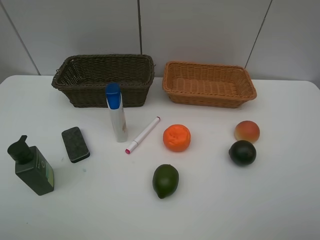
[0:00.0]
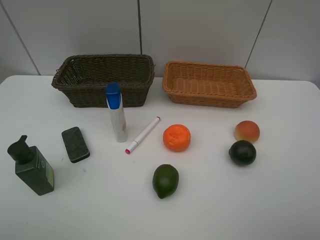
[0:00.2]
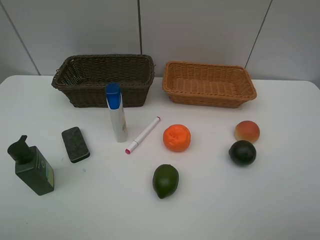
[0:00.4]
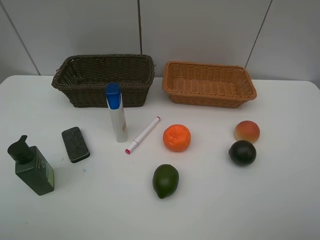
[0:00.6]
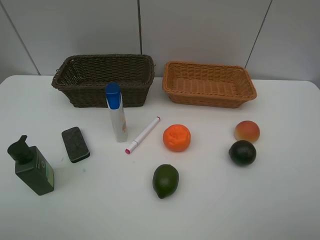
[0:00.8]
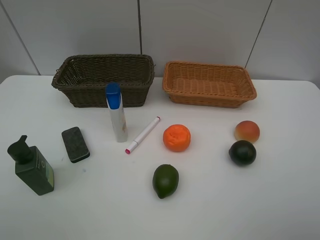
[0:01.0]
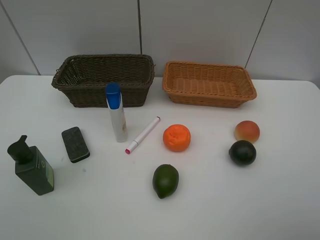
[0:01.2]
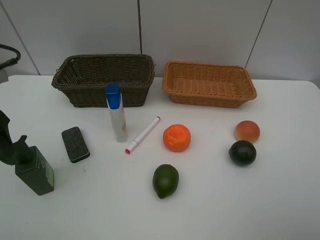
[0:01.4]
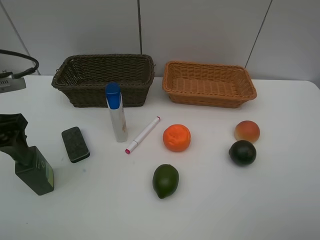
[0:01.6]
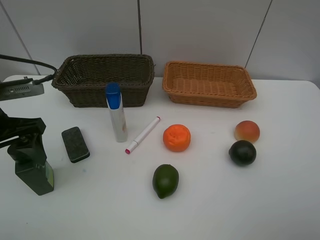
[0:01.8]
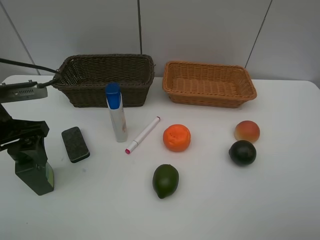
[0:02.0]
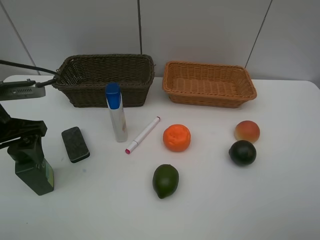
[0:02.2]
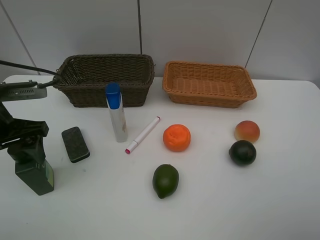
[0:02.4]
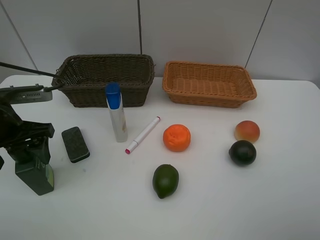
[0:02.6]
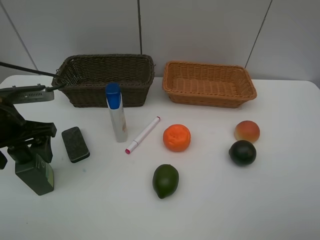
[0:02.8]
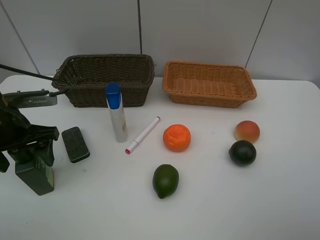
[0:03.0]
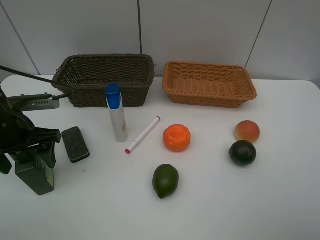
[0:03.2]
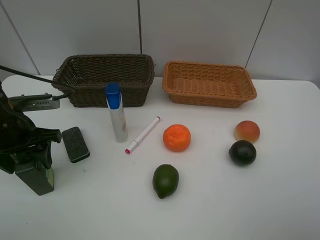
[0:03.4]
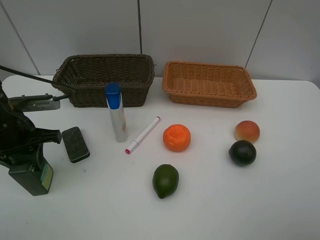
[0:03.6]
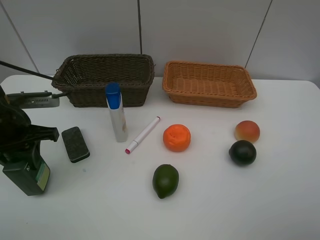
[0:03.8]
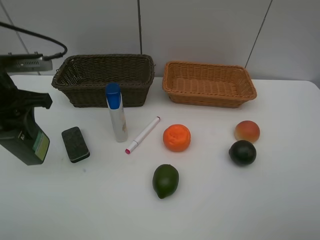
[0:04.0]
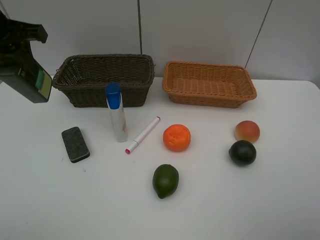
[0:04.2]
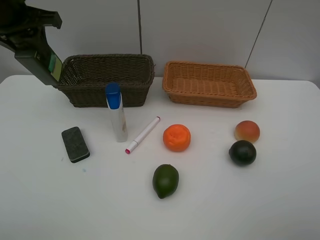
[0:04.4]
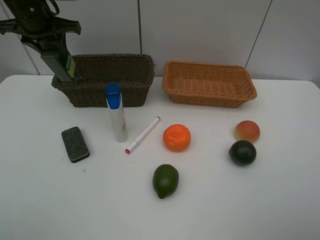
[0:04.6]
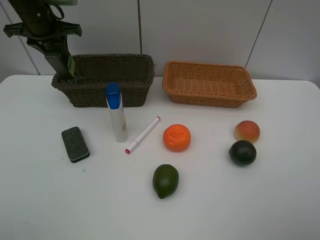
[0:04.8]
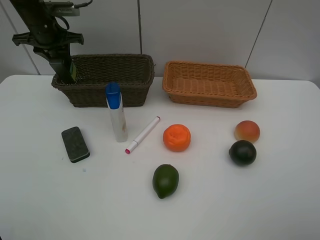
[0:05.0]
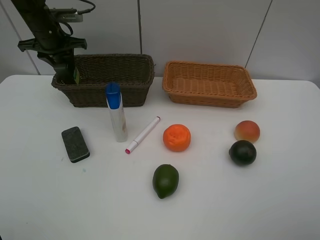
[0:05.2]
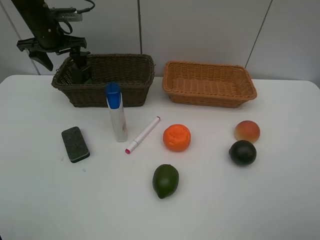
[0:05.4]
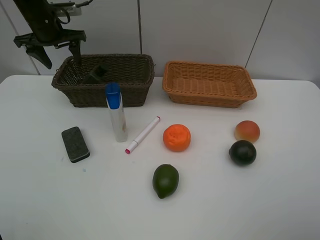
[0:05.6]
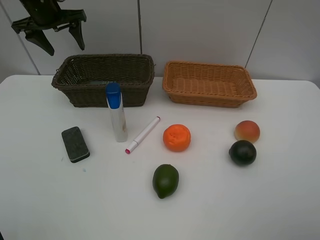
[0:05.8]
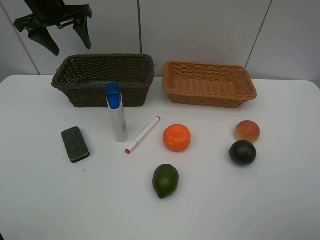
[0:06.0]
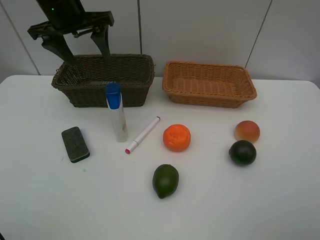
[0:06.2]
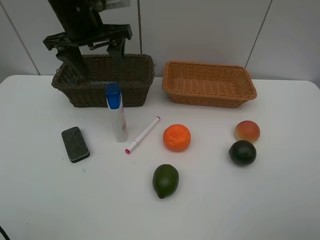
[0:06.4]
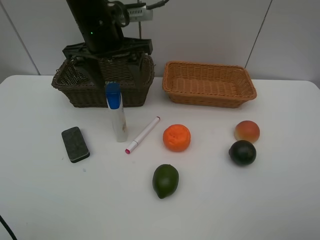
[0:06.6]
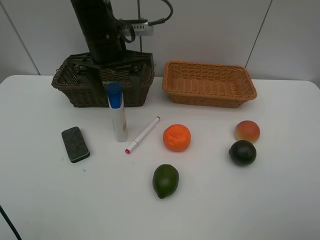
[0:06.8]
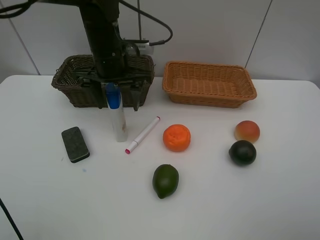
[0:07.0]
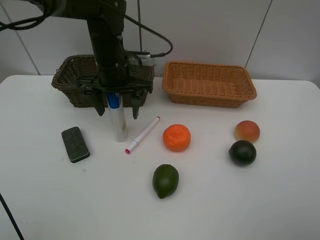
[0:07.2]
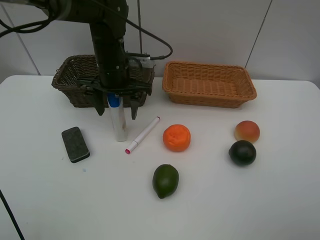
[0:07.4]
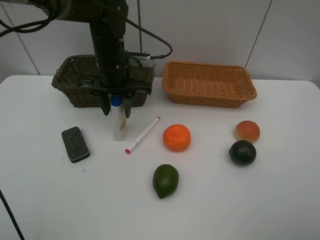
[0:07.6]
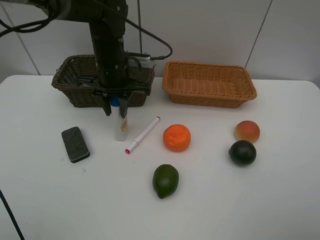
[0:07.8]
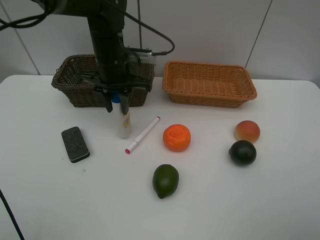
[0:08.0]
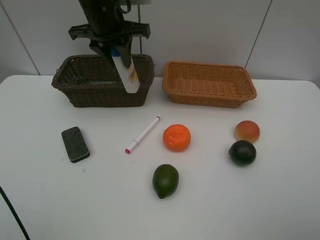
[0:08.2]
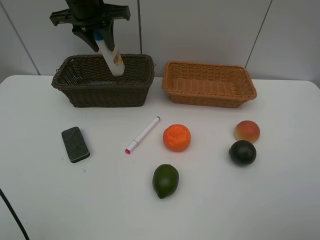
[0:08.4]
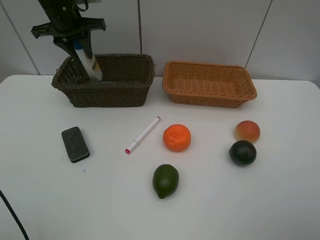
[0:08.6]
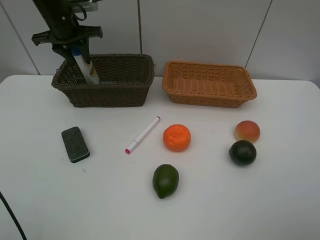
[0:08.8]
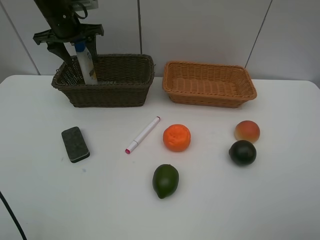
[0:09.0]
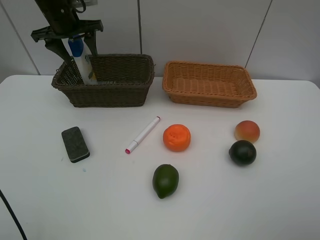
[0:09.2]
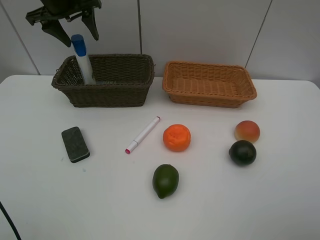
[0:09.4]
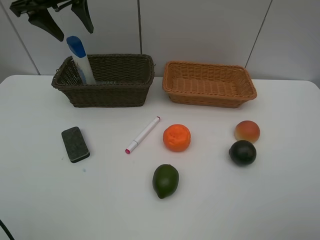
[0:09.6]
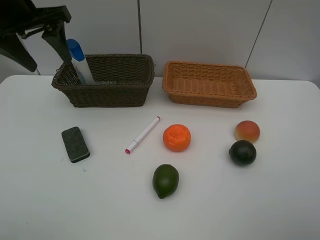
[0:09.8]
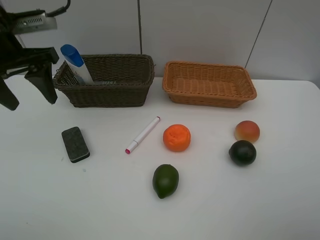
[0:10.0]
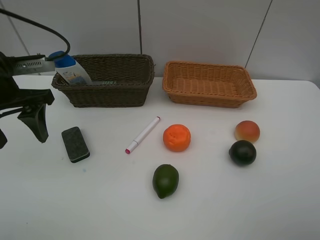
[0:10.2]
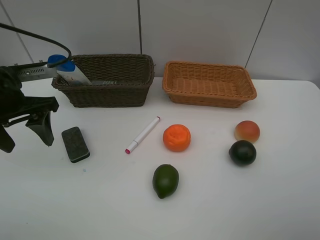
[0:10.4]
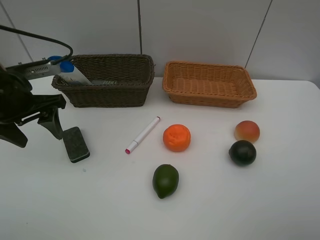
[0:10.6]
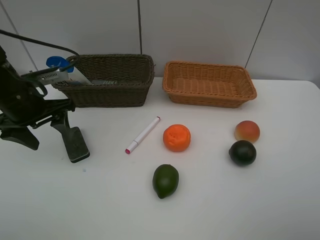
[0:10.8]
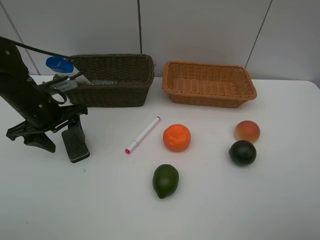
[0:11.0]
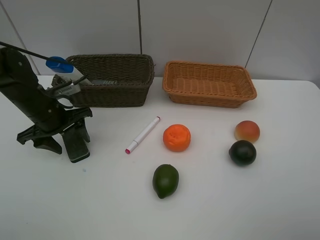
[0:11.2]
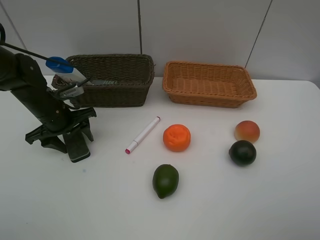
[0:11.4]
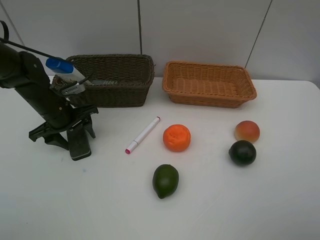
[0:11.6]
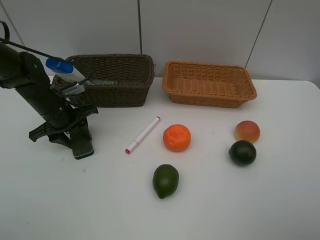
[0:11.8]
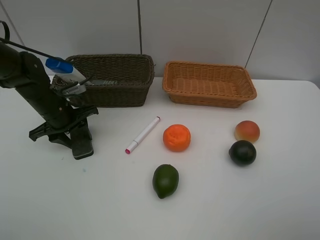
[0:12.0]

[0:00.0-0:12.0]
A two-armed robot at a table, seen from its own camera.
Task of the whole recording: Place multiple objects separately in different baskets.
Step, 0:00.0 to 0:03.8: Pick up the hard facial cleanser with left gripper.
Step, 0:04.0 to 0:05.4: Place the hard facial cleanser in the dark basket with left gripper.
Step, 0:05.6 to 0:08.0: Pick up the shampoo with left gripper.
Step, 0:08.2 to 0:09.6: Place the shampoo in the dark basket with left gripper.
0:00.0 to 0:01.6: The left gripper travels forward by about 20 cm.
0:01.6 to 0:03.0: The left gripper heads downward, covering approximately 5 cm.
0:03.0 to 0:04.4: The left gripper is displaced upward and forward by roughly 20 cm, and closes its fingers.
0:04.4 to 0:06.0: The left gripper travels forward by about 10 cm, and opens up.
0:06.0 to 0:07.6: The left gripper travels to the right, downward and backward by some 20 cm, and closes its fingers.
0:07.6 to 0:09.0: The left gripper heads to the left, forward and upward, covering some 20 cm, and opens up.
0:09.0 to 0:10.4: The left gripper moves backward, about 20 cm.
0:10.4 to 0:12.0: The left gripper moves downward and forward, roughly 15 cm.

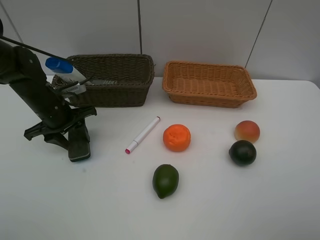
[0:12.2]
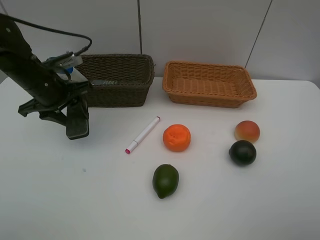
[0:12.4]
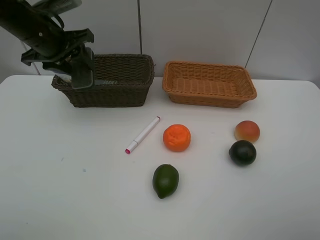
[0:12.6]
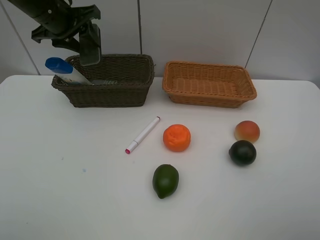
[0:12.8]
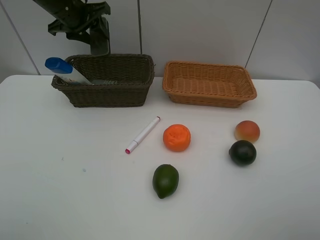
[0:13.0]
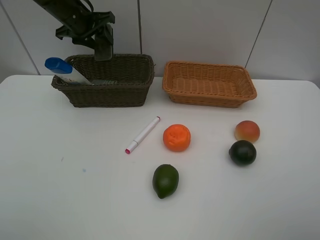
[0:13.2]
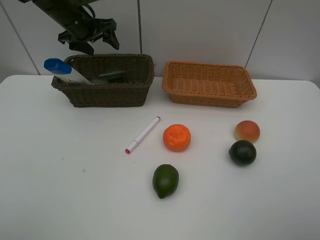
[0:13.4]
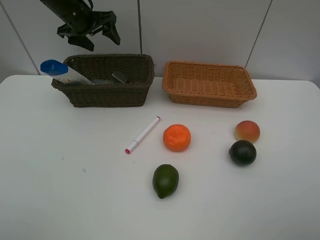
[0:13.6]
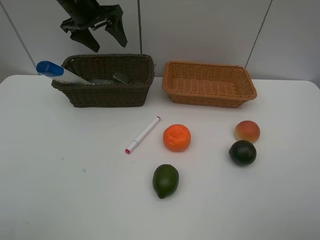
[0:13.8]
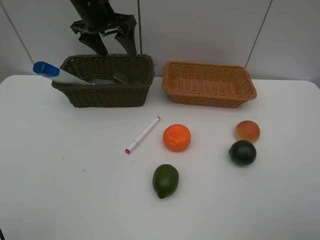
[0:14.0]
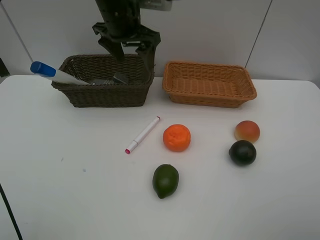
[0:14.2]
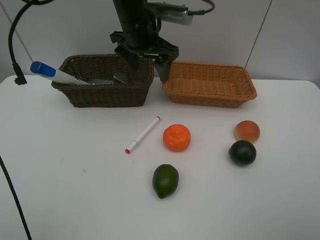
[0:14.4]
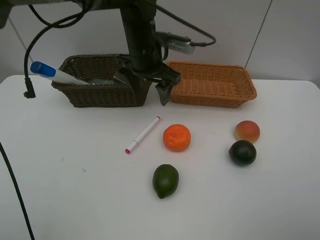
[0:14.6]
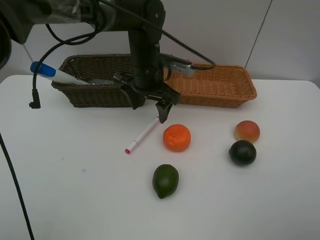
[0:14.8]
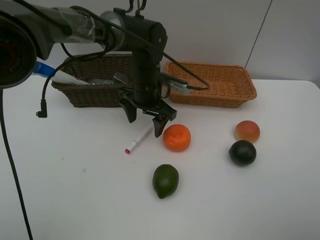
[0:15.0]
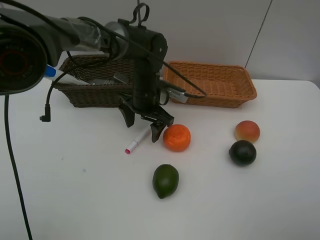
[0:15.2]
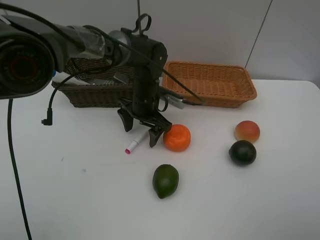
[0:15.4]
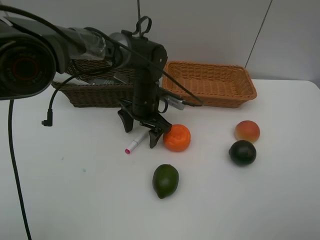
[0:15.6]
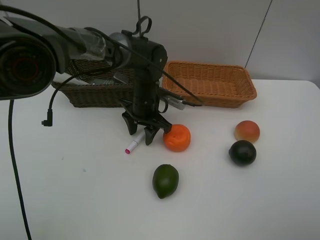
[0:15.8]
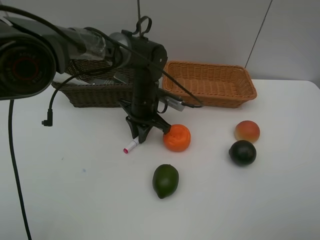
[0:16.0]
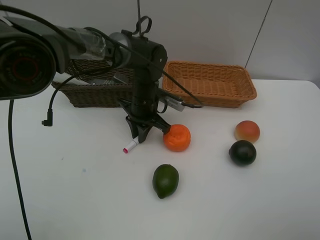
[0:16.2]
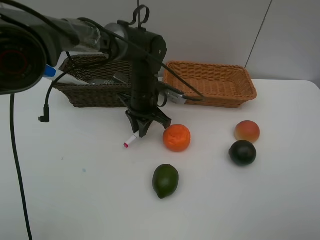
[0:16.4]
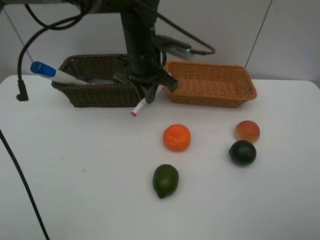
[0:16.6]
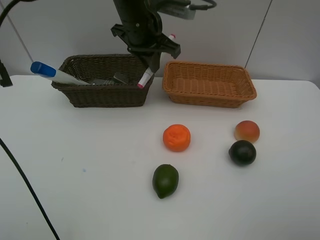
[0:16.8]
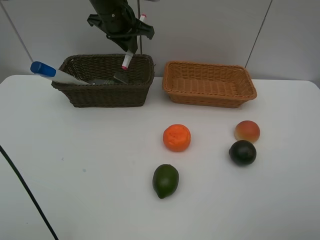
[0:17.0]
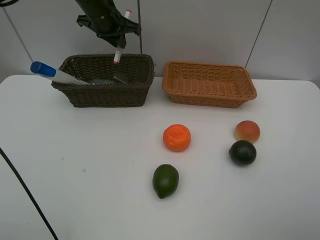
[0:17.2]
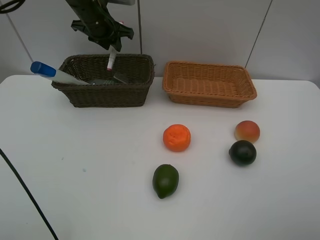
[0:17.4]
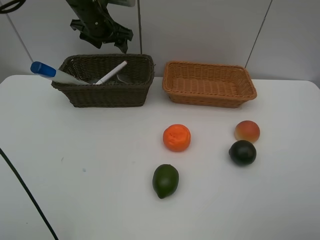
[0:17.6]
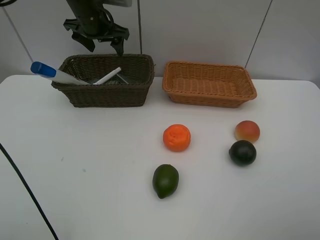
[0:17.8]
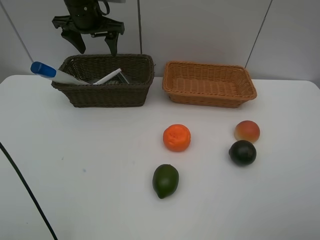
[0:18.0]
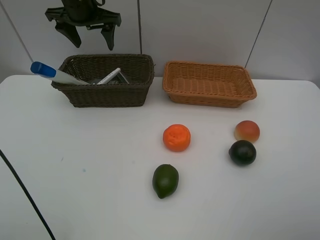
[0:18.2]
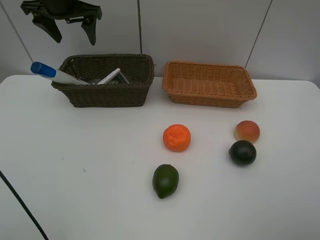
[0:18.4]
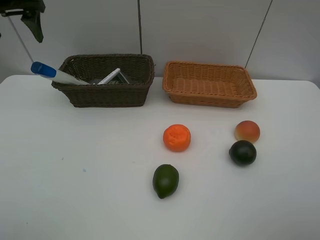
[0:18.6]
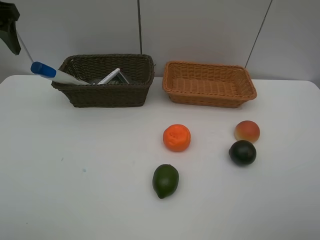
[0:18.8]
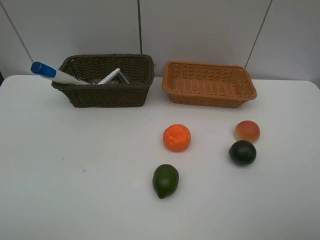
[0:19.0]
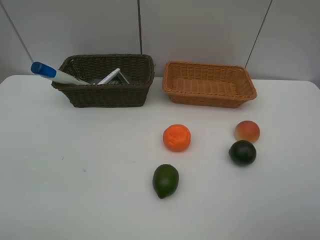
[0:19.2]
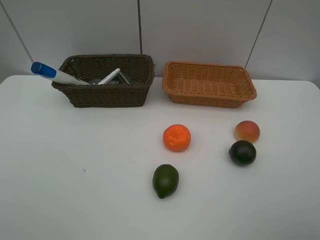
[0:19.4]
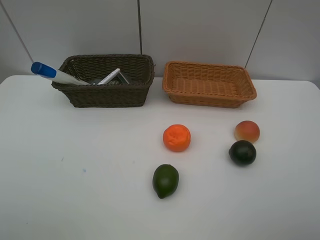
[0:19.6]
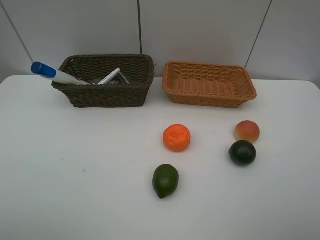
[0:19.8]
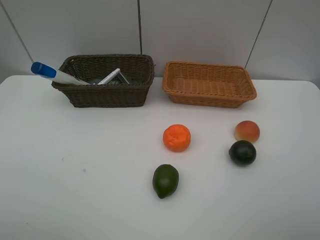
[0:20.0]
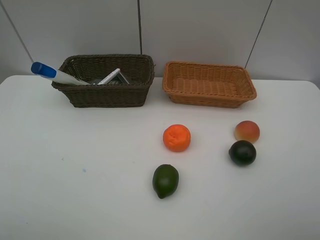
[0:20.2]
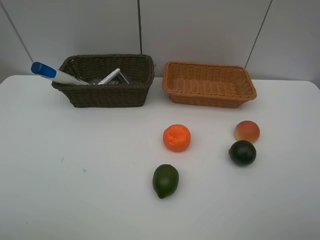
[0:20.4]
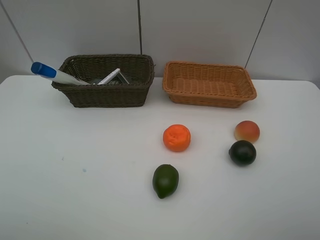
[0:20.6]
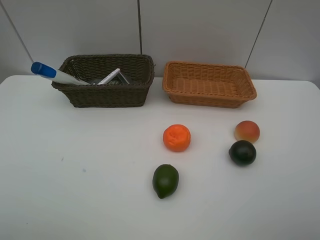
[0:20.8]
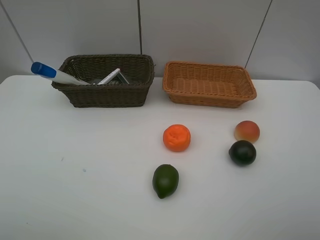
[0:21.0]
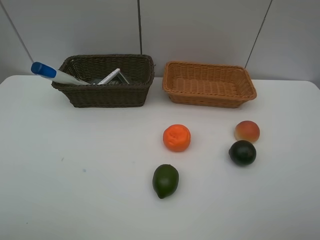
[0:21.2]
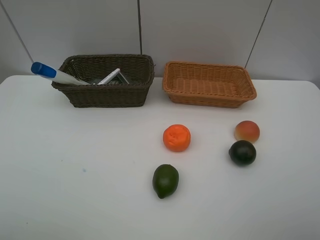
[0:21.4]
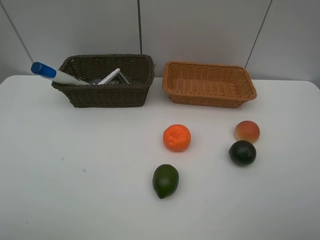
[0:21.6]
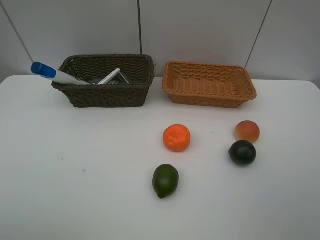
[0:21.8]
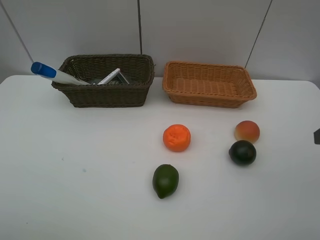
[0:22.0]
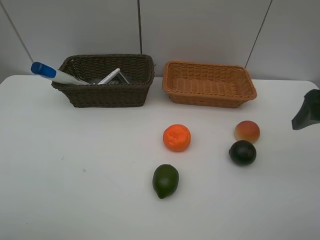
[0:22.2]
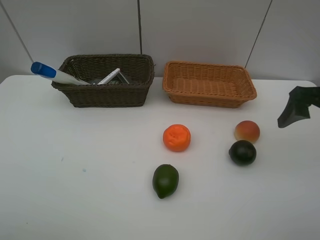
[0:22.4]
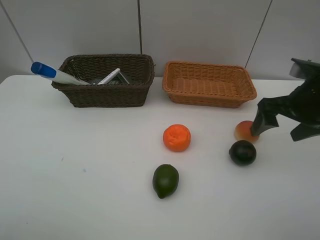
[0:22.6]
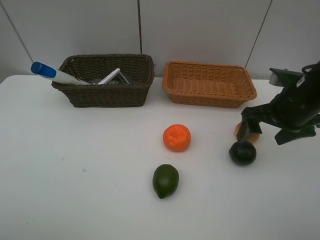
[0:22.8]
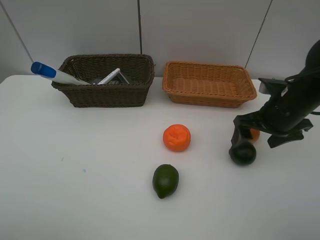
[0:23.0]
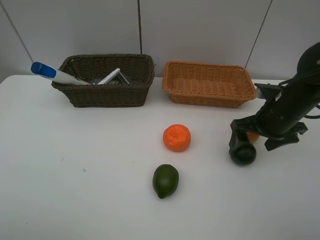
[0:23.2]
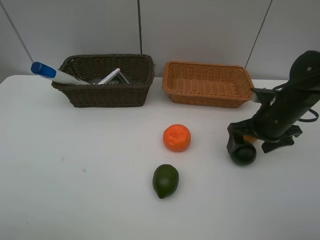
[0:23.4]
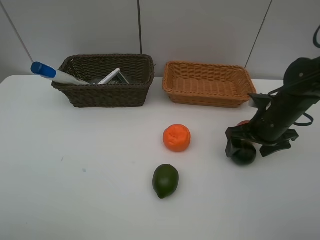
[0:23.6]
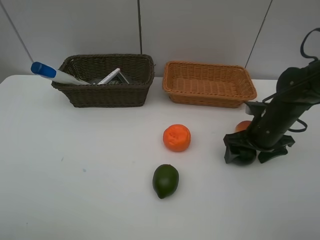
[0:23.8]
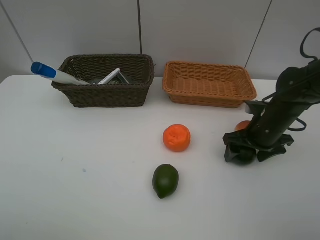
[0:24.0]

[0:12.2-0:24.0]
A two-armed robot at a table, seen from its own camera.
Task of the whole recording: Place multiple objects separately in different baskets.
Step, 0:12.4 to 0:13.6: Place the blackboard eraser in the dark basket with left gripper.
Step, 0:13.8 to 0:16.4: Pick up the red marker with left gripper.
Step, 0:16.6 to 0:17.6: Place the red marker in the dark basket with left gripper.
0:12.2 to 0:13.6: The left gripper shifts roughly 20 cm forward and upward, and opens.
0:13.6 to 0:15.2: The left gripper shifts about 25 cm to the right, downward and backward.
0:15.2 to 0:16.6: The left gripper travels upward by some 10 cm, and closes.
0:16.6 to 0:18.2: The left gripper moves to the left, forward and upward, approximately 20 cm, and opens.
0:18.2 to 0:19.6: The left gripper travels backward by roughly 40 cm.
0:21.0 to 0:22.6: The right gripper heads forward, covering roughly 25 cm.
0:22.6 to 0:24.0: The right gripper travels downward by about 10 cm.
